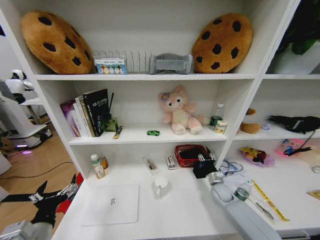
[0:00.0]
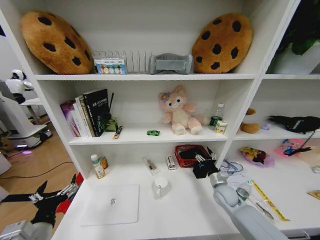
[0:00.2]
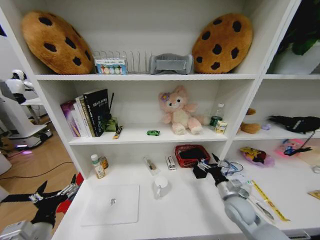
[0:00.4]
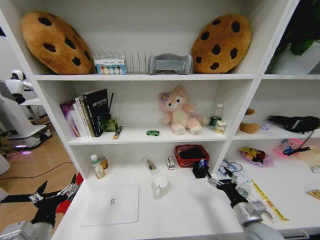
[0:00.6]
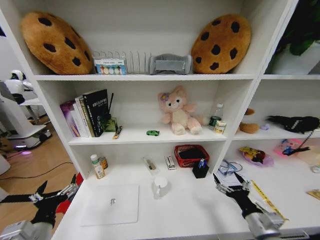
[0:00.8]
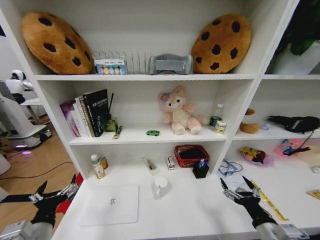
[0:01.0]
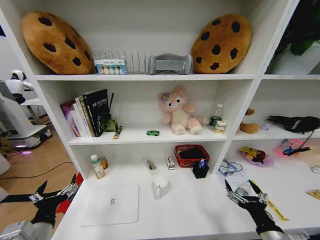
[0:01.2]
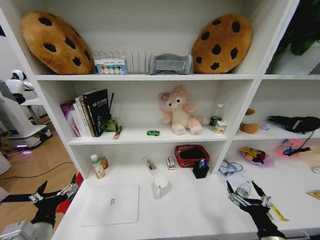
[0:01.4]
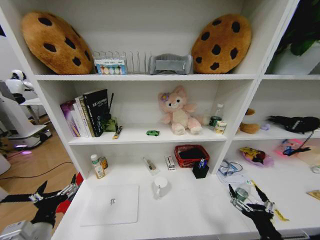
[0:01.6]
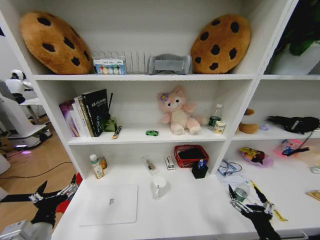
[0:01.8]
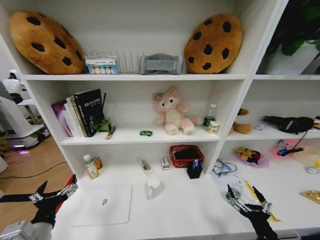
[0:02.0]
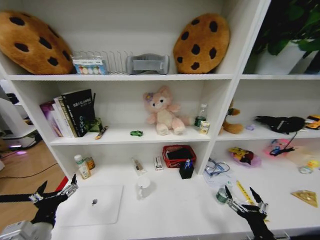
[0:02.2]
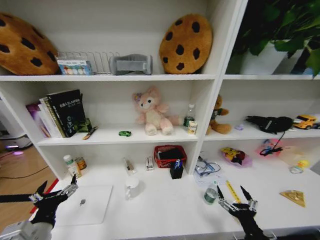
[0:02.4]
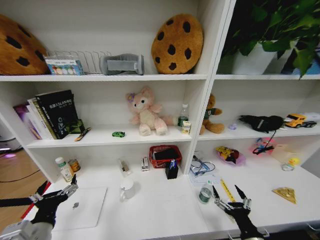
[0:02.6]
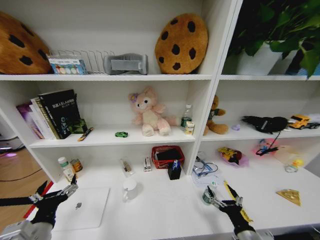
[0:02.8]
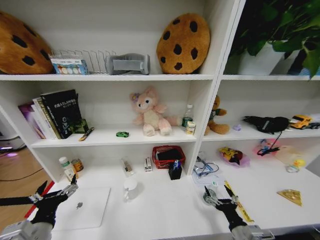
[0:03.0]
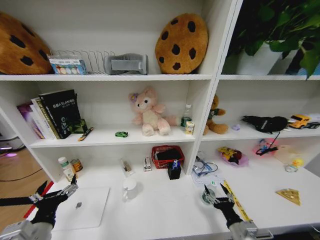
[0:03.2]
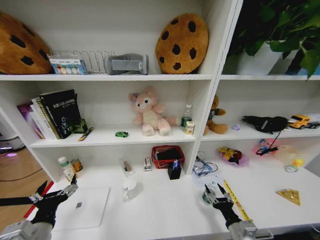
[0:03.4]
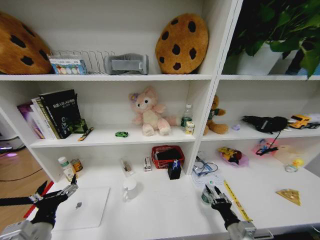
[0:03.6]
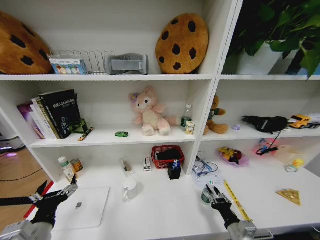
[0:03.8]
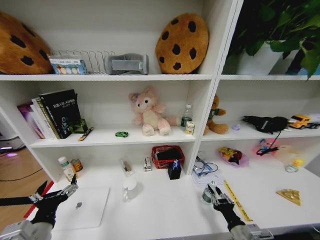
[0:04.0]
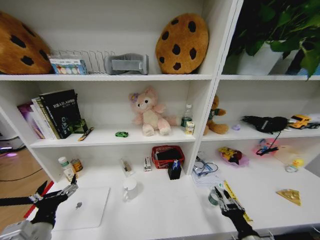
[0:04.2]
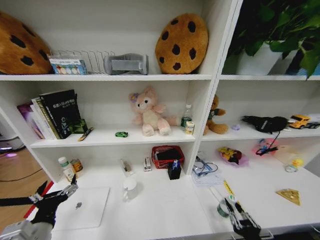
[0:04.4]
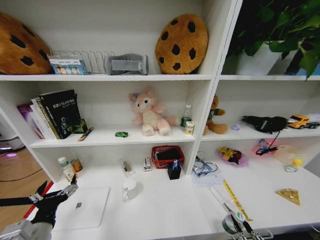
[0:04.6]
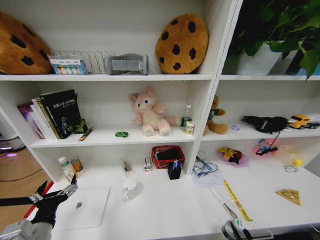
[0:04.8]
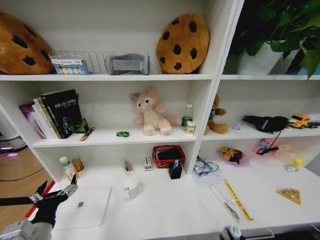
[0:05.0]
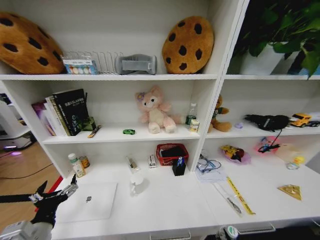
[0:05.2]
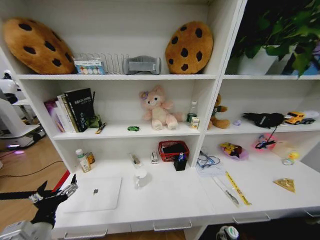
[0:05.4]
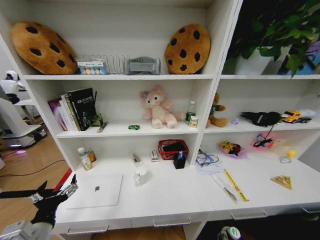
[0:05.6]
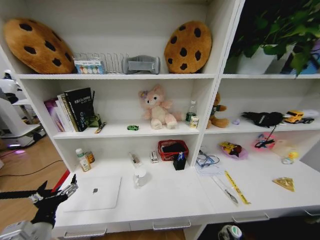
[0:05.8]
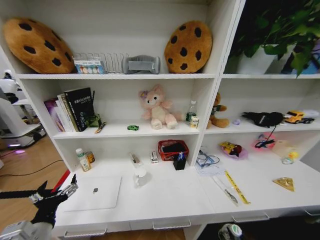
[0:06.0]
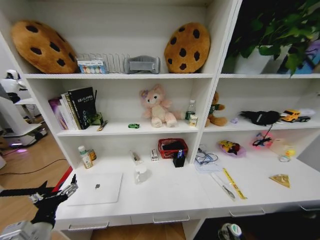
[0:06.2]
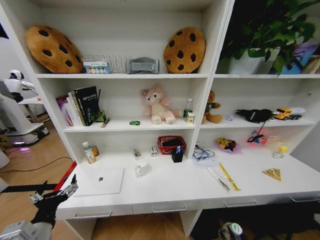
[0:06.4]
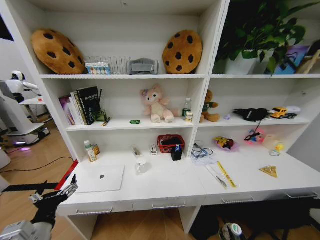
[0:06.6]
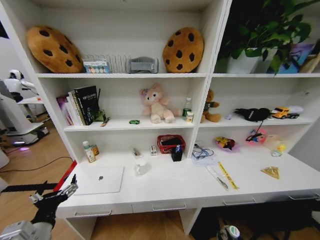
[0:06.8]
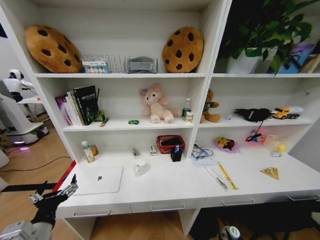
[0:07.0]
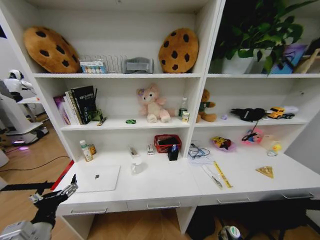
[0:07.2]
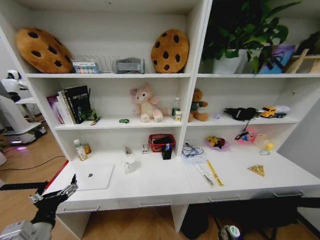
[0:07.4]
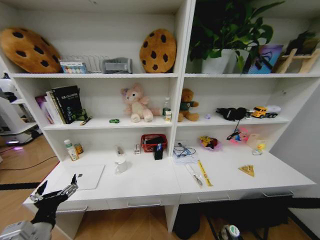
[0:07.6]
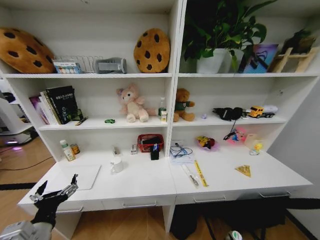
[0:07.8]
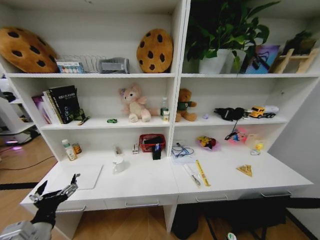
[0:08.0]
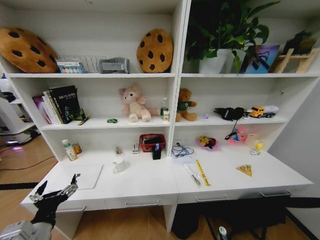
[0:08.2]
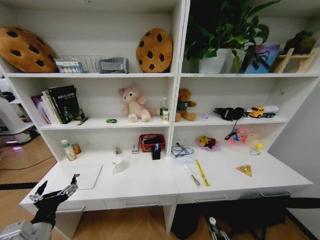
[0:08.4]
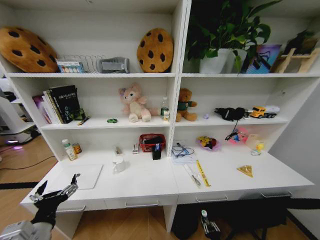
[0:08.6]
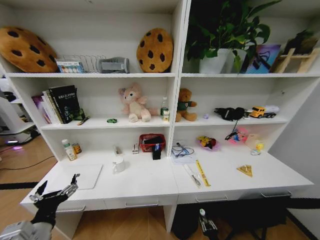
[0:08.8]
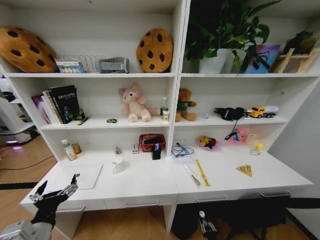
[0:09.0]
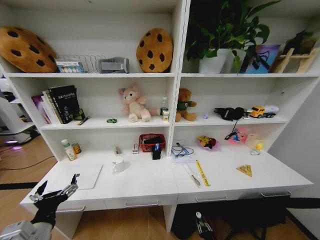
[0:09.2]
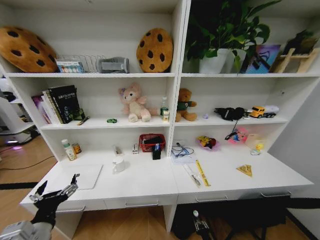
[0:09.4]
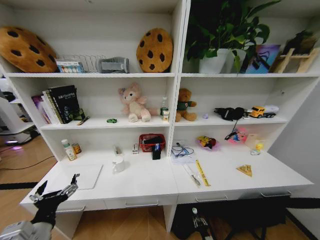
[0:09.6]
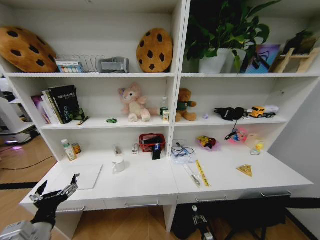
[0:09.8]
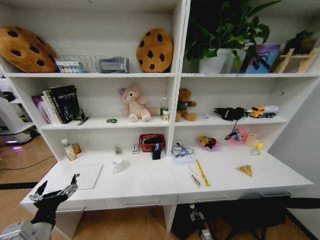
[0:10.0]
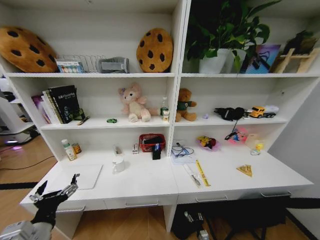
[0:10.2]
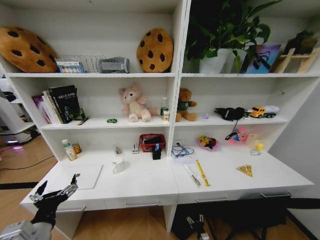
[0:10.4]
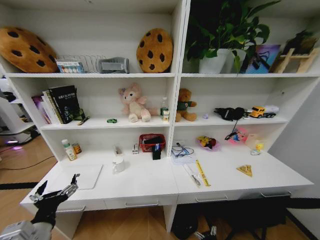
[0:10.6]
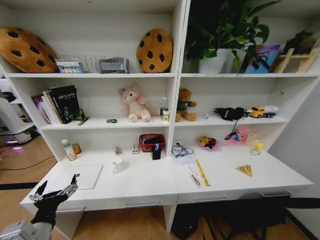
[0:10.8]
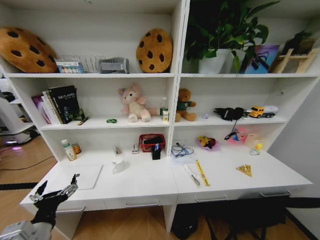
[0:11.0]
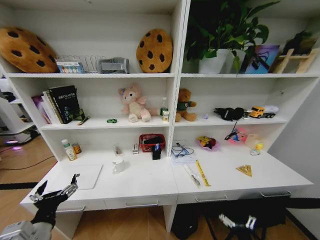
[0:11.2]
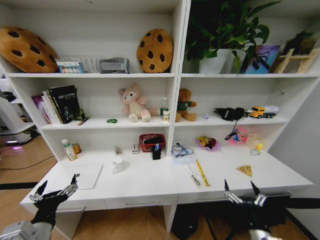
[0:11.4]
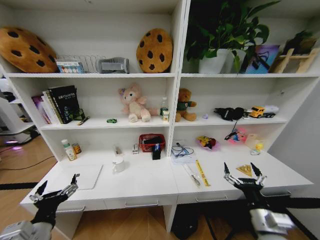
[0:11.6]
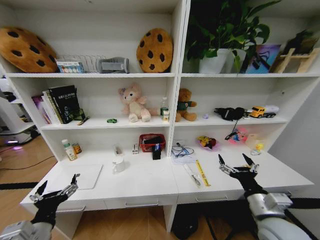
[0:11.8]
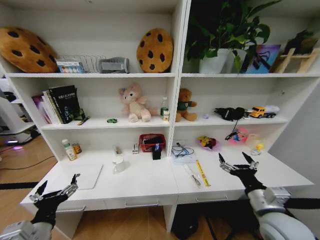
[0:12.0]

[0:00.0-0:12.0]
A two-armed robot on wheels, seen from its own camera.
Task of the whole recording: Organize the objects on the table.
0:00.0 to 0:01.6: The right gripper moves backward, roughly 30 cm, and opens its fingers.
0:01.6 to 0:03.0: The right gripper goes some 10 cm forward and downward.
0:03.0 to 0:04.4: The right gripper shifts approximately 10 cm backward, and closes up.
0:04.4 to 0:06.0: The right gripper is displaced backward by some 10 cm.
0:07.6 to 0:09.0: The right gripper travels downward and forward by some 30 cm.
0:09.0 to 0:10.4: The right gripper heads forward, covering some 5 cm, and opens up.
0:10.4 to 0:12.0: The right gripper is displaced upward by about 50 cm.

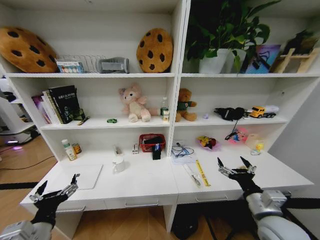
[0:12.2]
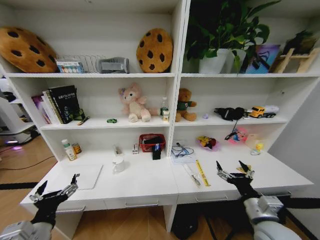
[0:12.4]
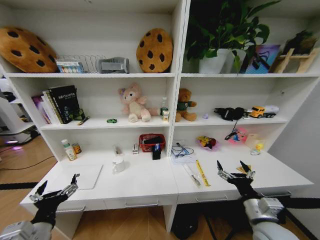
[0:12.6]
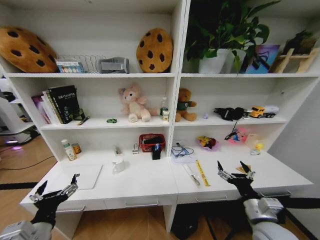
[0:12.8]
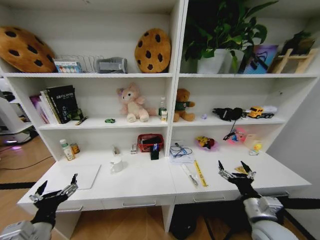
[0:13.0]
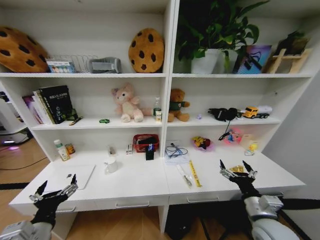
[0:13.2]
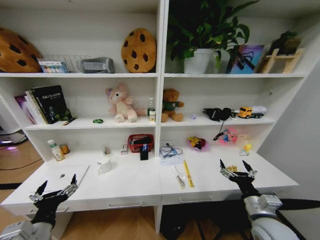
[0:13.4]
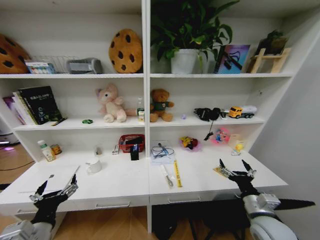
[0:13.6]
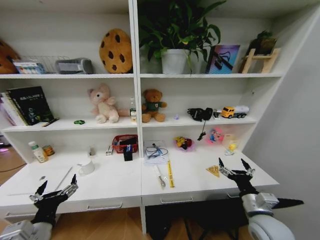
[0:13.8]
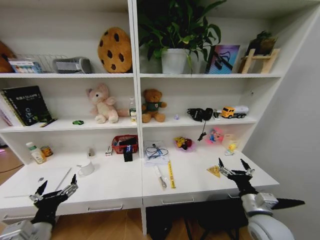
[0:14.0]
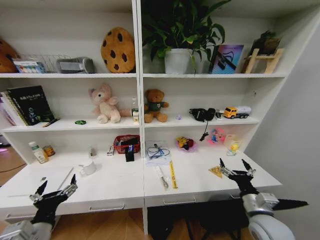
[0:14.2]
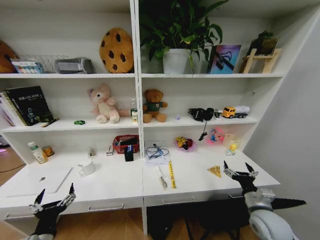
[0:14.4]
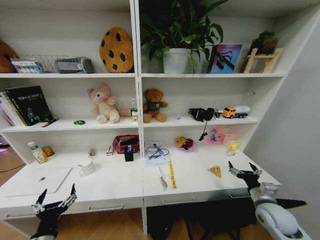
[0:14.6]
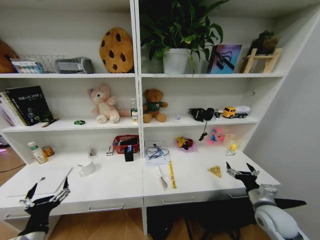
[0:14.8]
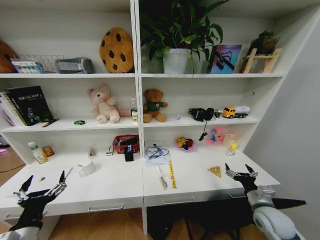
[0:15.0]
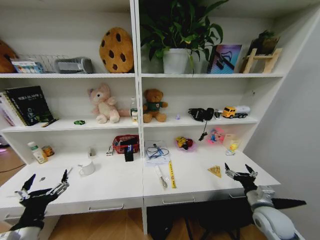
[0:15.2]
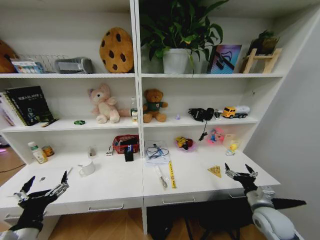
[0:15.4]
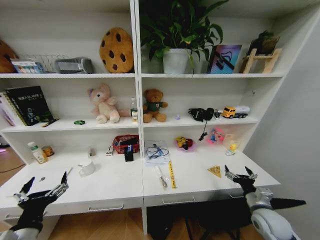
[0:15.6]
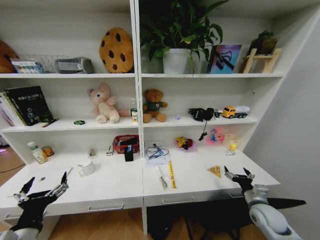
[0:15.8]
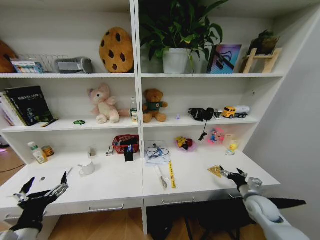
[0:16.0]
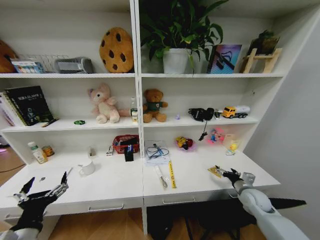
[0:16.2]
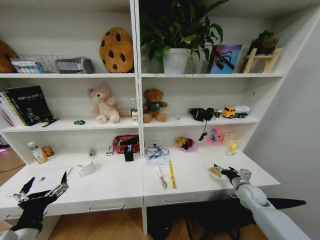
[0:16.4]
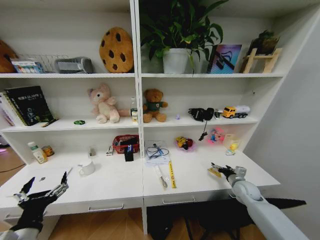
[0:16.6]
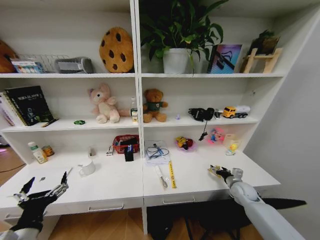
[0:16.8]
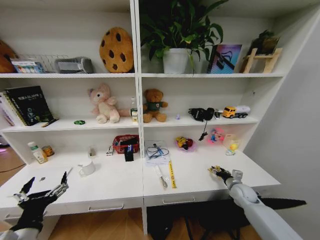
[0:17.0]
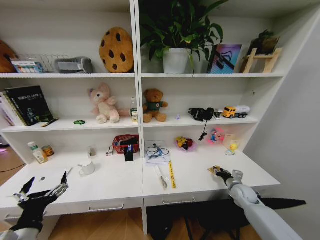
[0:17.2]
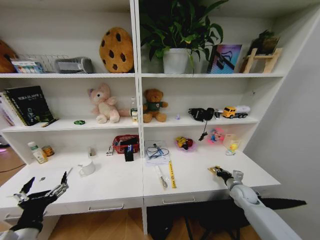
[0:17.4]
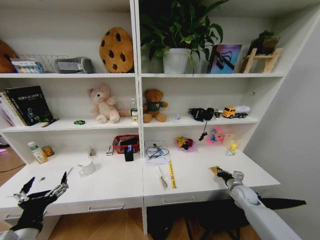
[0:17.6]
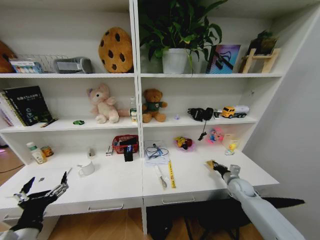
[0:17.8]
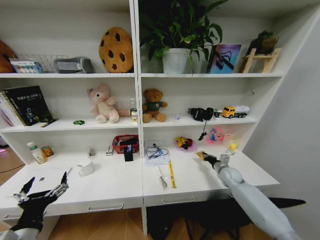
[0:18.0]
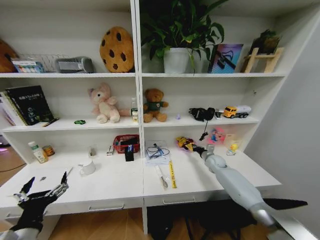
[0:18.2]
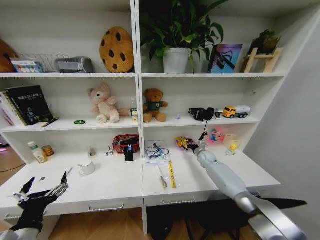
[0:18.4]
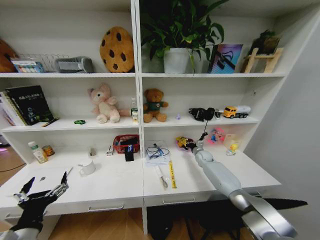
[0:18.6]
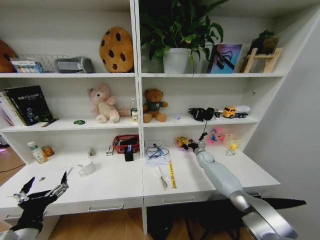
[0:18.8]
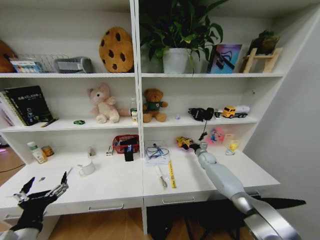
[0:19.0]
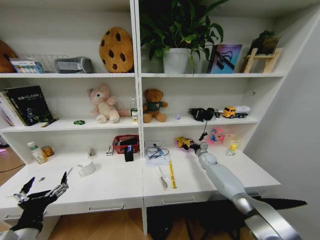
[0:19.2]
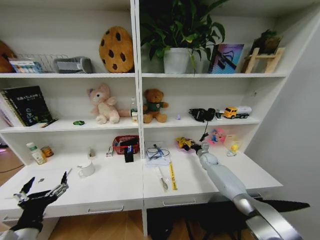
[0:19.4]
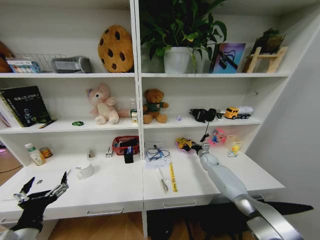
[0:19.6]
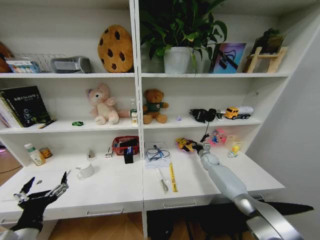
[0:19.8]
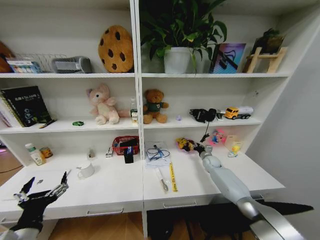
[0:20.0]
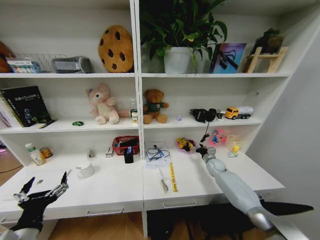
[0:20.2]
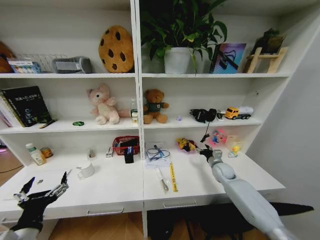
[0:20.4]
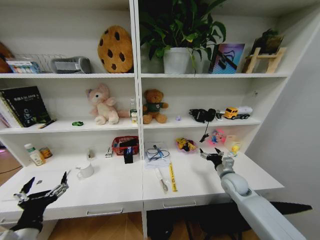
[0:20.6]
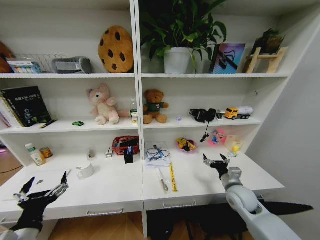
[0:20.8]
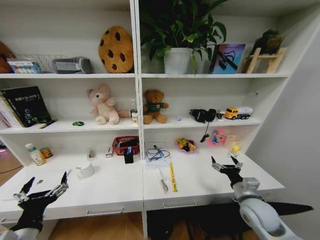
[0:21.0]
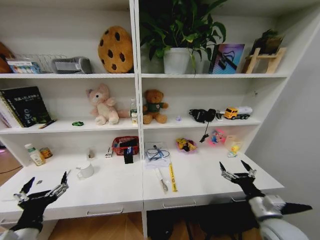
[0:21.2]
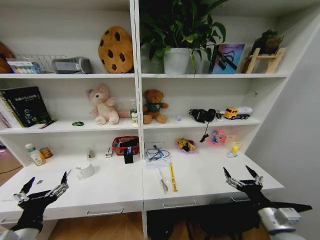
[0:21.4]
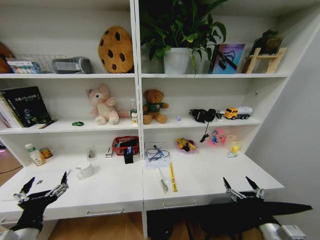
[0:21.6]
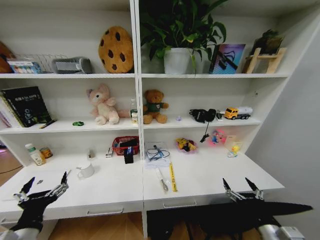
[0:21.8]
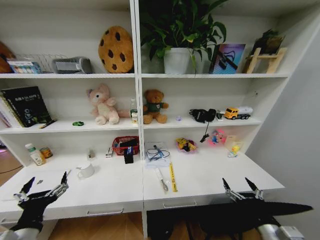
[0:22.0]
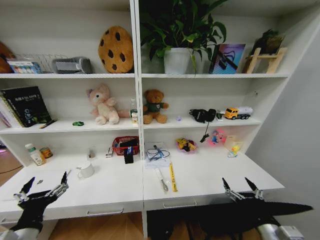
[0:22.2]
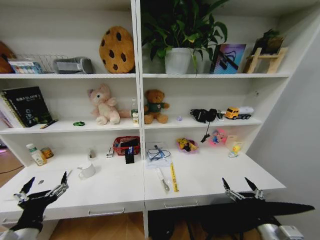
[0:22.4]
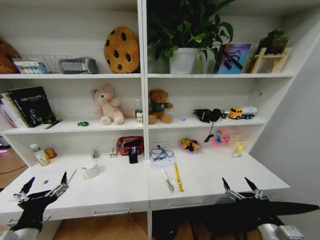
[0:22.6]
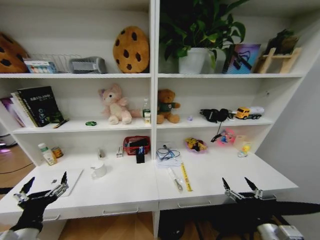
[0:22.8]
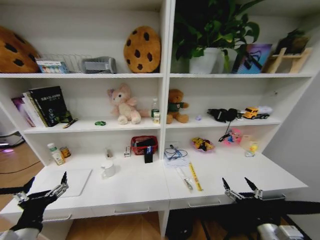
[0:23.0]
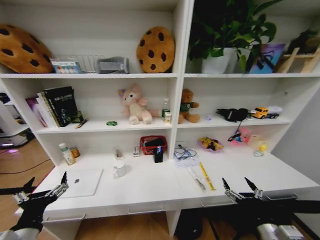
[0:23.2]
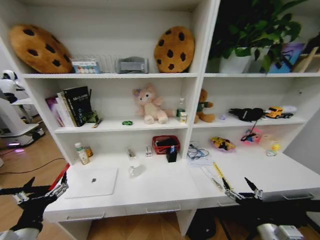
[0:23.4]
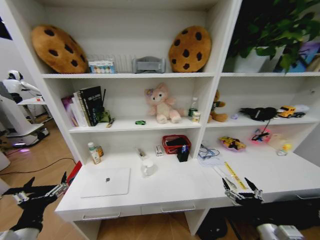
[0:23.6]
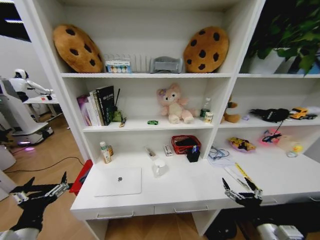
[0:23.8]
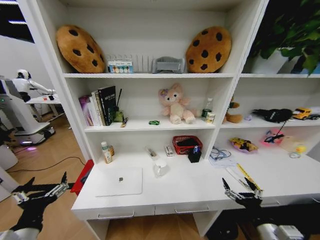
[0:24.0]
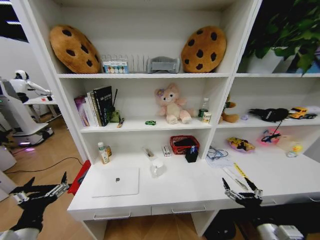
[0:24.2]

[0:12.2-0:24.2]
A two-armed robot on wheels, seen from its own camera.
Task of the whole recording: Organize the objects on the table.
0:12.2 to 0:13.8: The right gripper ends up some 5 cm from where it was.
0:13.8 to 0:15.2: The left gripper travels downward and back again, some 10 cm each way, while the right gripper is displaced to the right by about 5 cm.
0:15.2 to 0:16.6: The right gripper heads forward, covering some 15 cm.
0:16.6 to 0:18.2: The right gripper goes about 15 cm forward and to the left, and closes.
0:19.8 to 0:21.2: The right gripper travels backward by roughly 35 cm, and opens.
0:21.2 to 0:22.6: The right gripper shifts approximately 10 cm backward.
